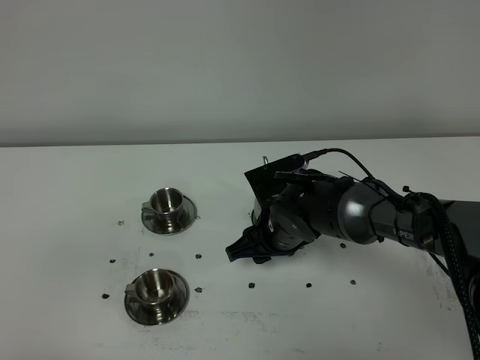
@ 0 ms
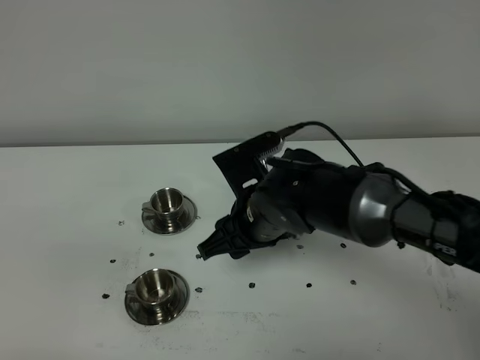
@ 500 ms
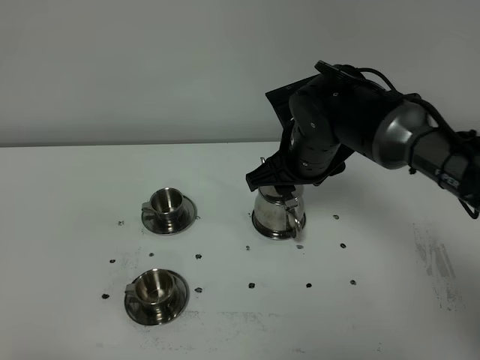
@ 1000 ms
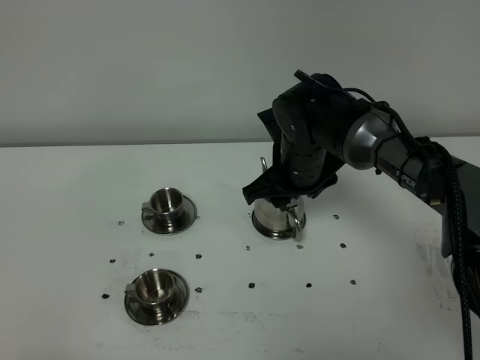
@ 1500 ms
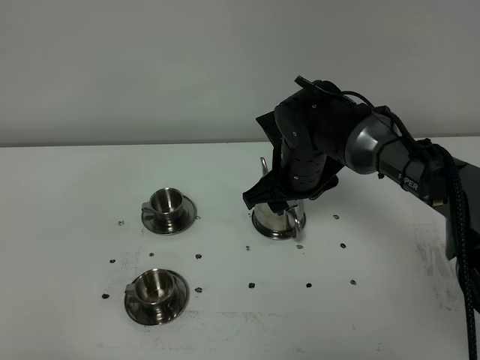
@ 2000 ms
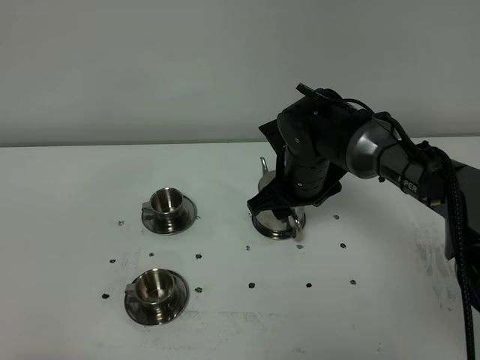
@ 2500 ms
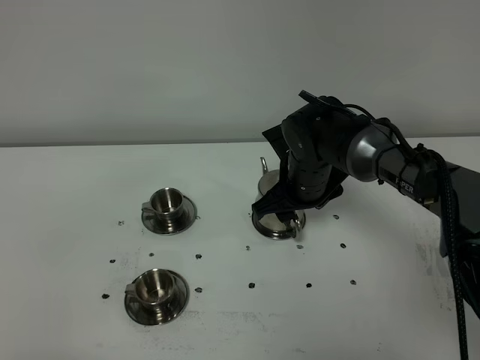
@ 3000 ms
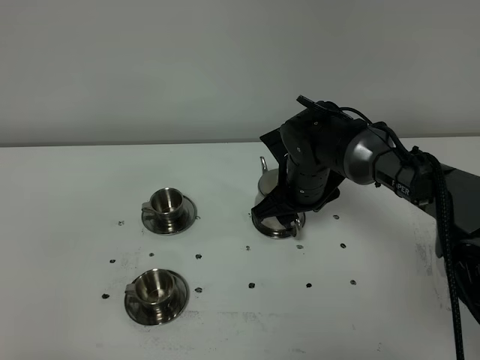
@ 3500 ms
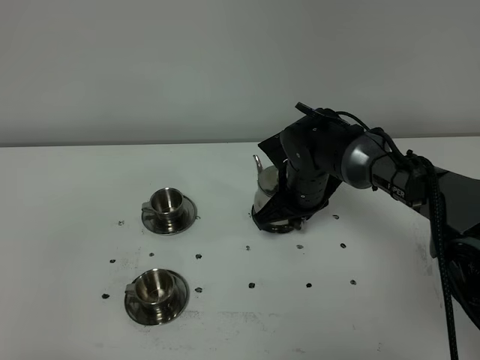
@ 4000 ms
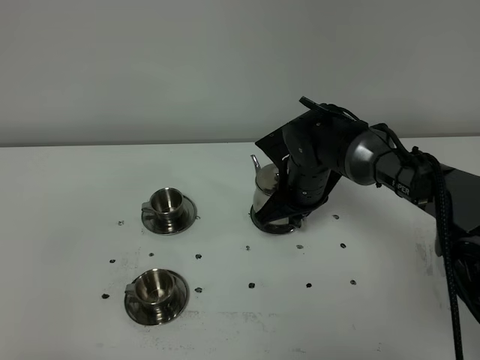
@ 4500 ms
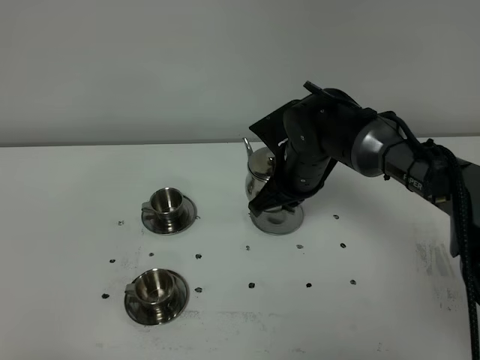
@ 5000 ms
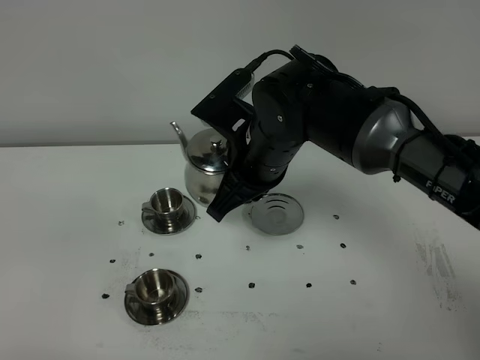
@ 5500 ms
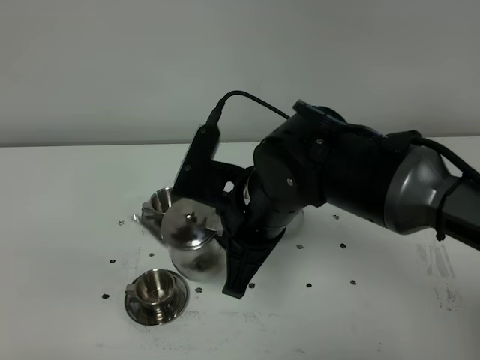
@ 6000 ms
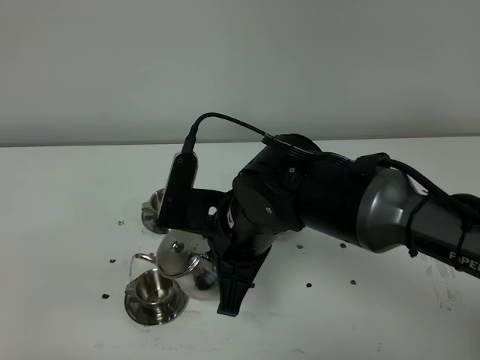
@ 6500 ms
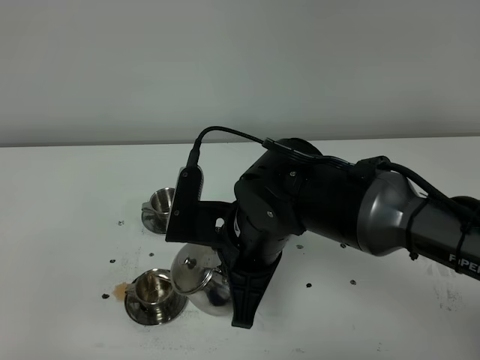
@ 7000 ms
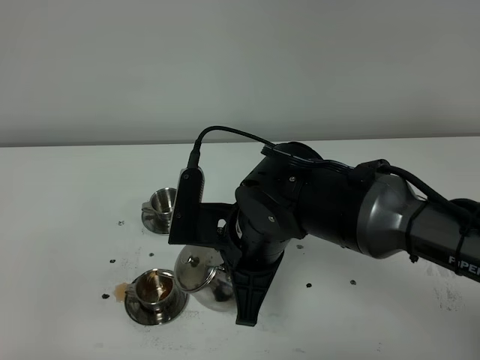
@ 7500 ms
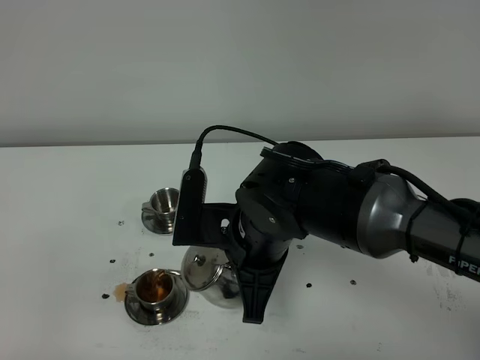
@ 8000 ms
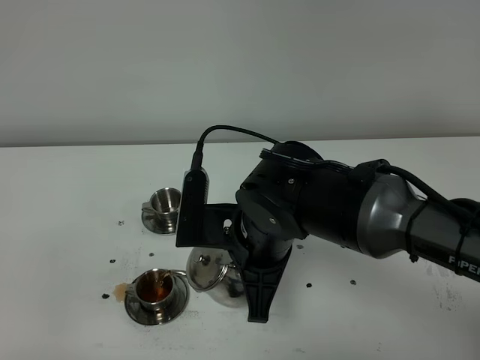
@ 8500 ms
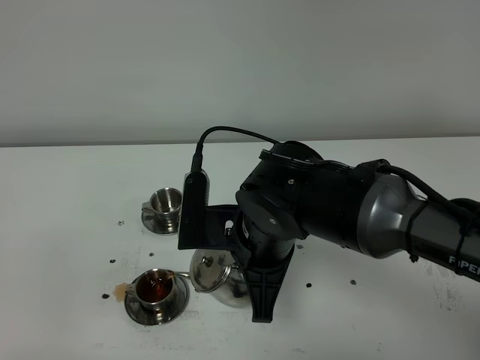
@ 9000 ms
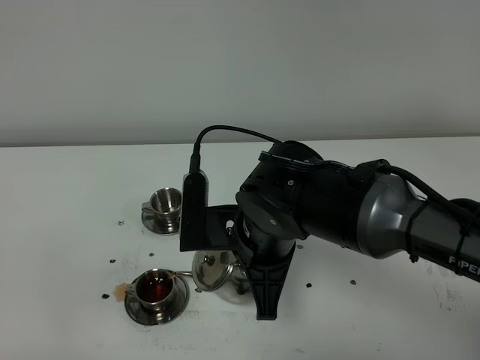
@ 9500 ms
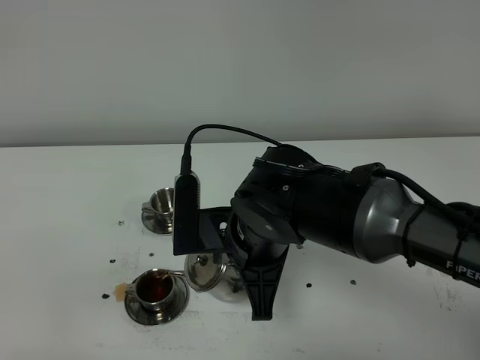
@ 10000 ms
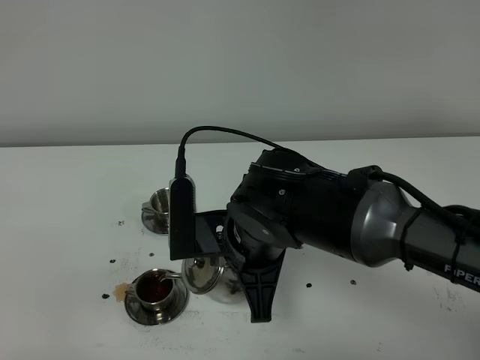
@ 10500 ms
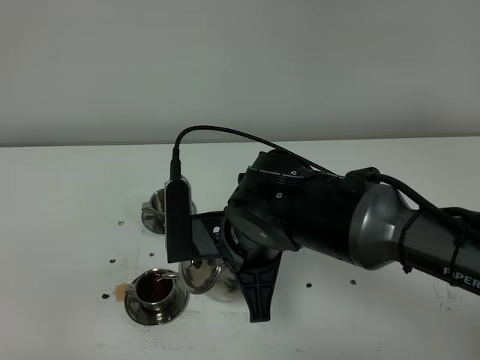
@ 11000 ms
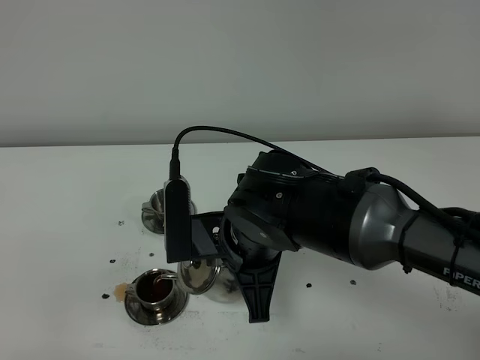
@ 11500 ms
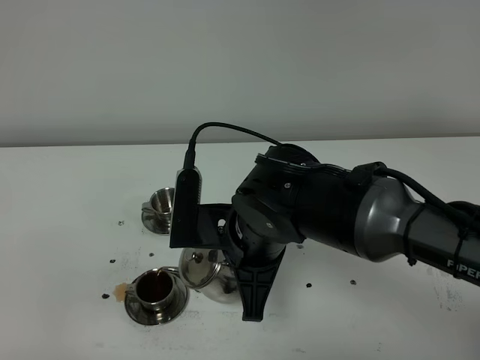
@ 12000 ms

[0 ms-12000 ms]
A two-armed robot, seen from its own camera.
Task of the whole recording: grasp the stainless steel teapot and pour the tea into the two stainless steel teacups one by one, put the stainless steel teapot back in its original place.
Step, 0 ms to 4500 ms: Pick up the teapot with the right gripper.
0 ms to 2000 ms: The right gripper moves upward, roughly 5 cm.
2000 ms to 4000 ms: The right gripper moves approximately 5 cm, and closes its fingers.
4000 ms to 6000 ms: The right gripper goes approximately 20 cm backward, upward and to the left.
6000 ms to 10000 ms: The grippers stay close to where they were, moving slightly.
10000 ms to 12000 ms: The grippers stay close to where they were, moving slightly.

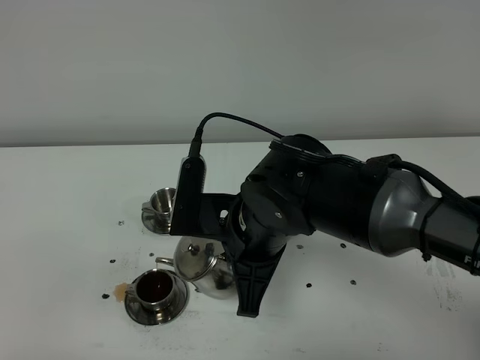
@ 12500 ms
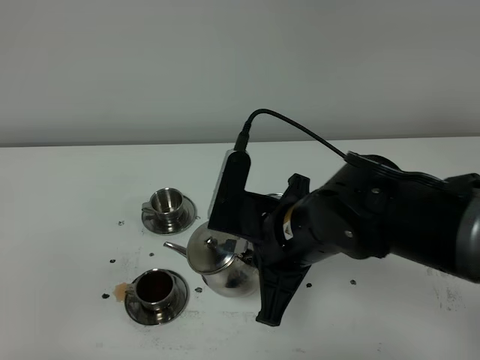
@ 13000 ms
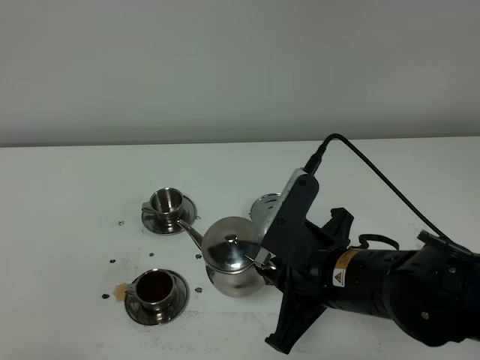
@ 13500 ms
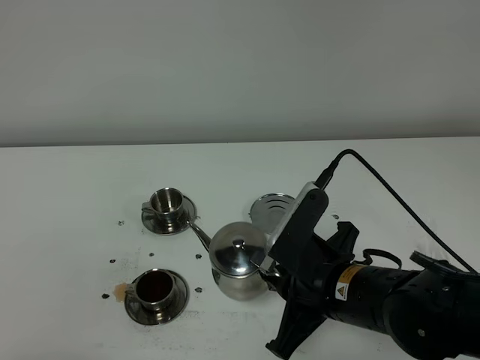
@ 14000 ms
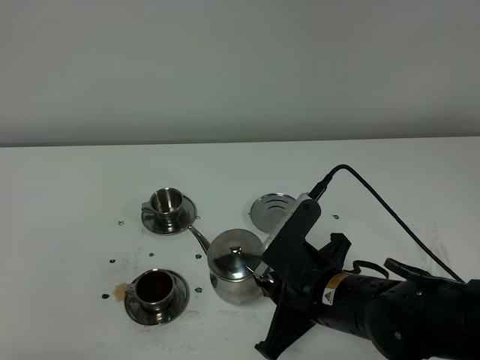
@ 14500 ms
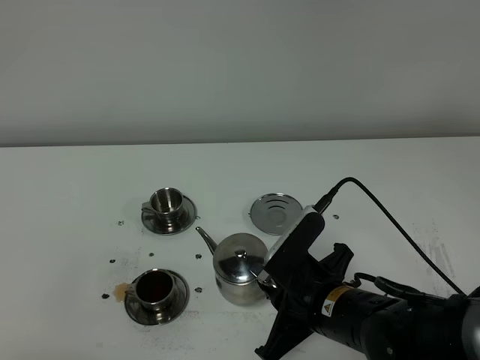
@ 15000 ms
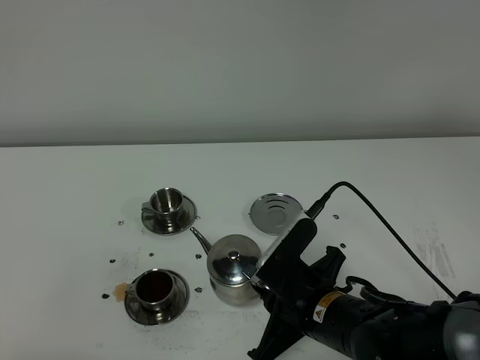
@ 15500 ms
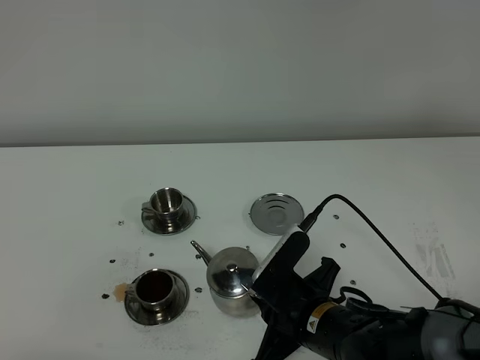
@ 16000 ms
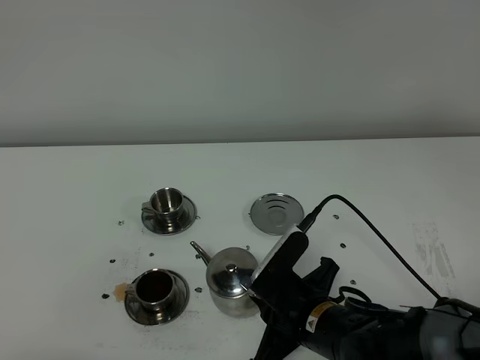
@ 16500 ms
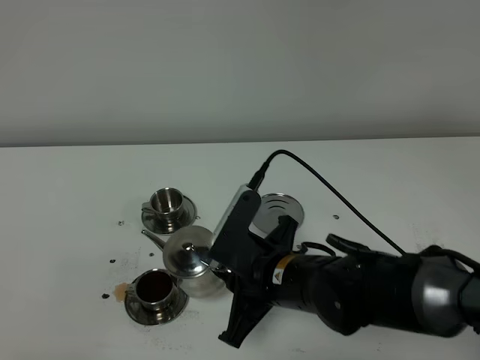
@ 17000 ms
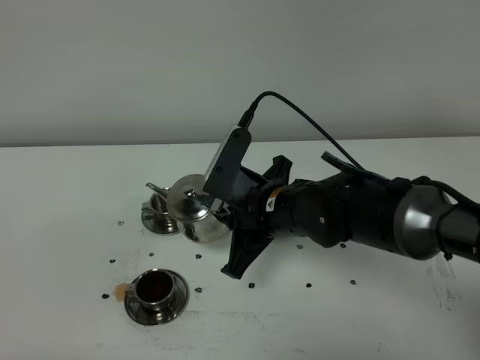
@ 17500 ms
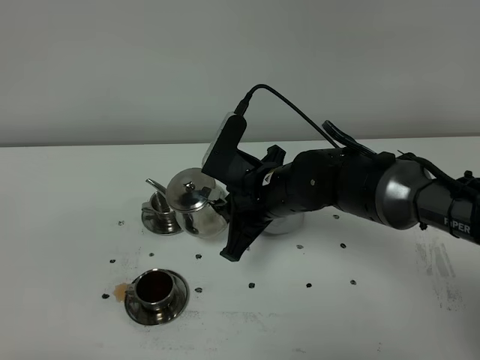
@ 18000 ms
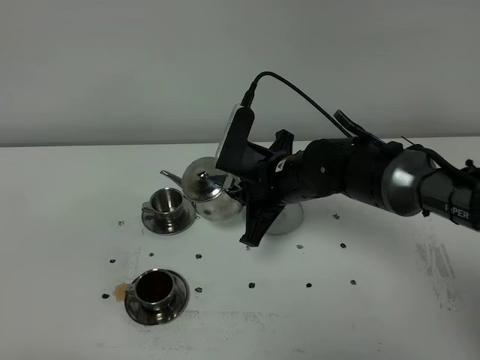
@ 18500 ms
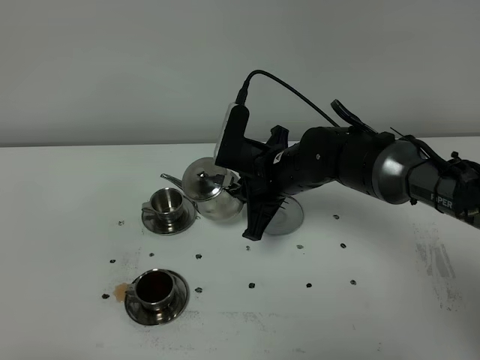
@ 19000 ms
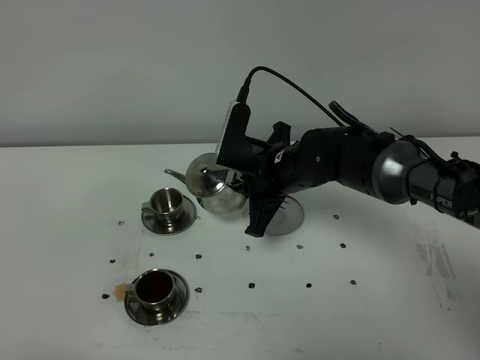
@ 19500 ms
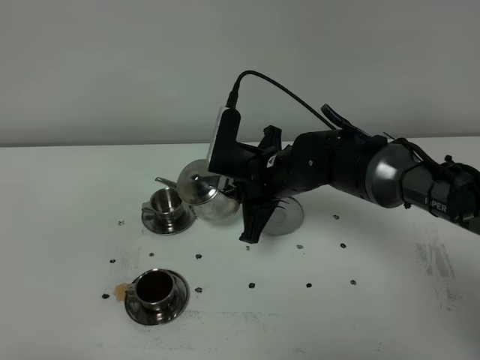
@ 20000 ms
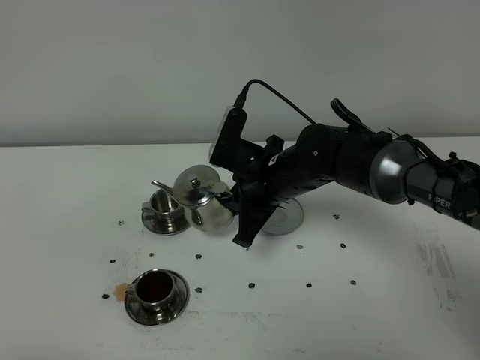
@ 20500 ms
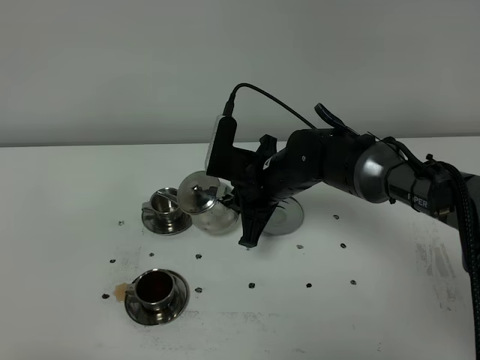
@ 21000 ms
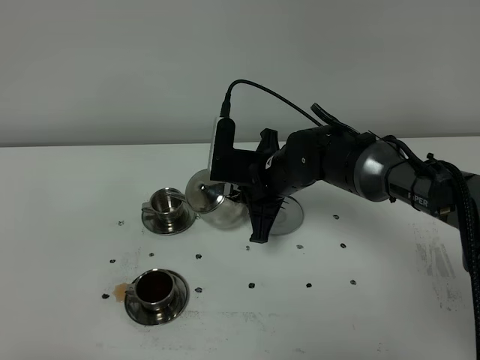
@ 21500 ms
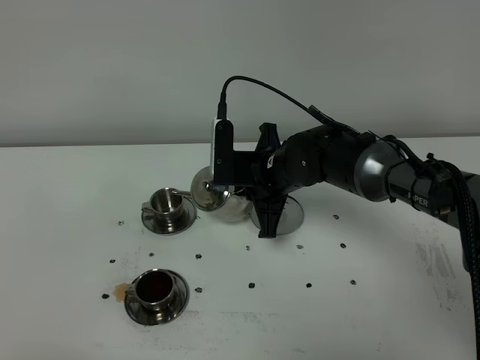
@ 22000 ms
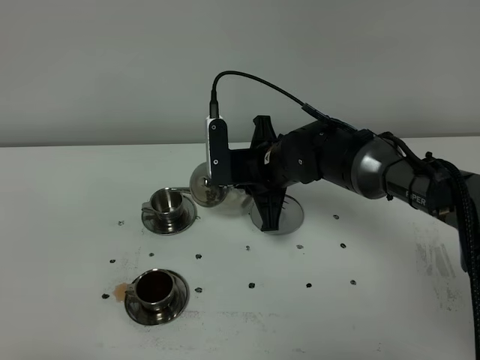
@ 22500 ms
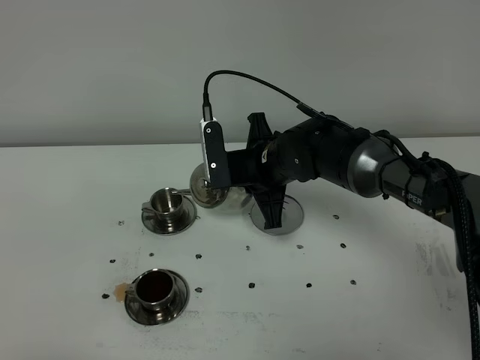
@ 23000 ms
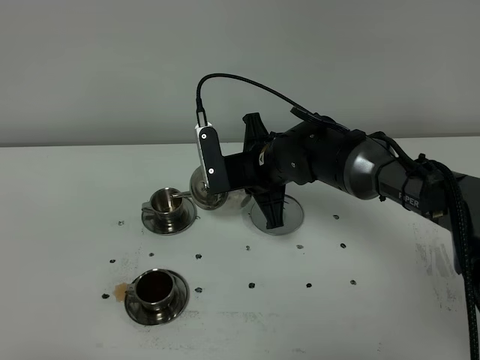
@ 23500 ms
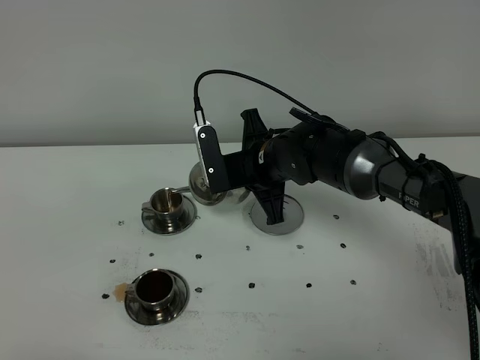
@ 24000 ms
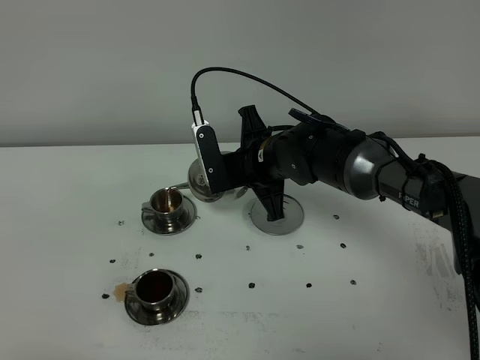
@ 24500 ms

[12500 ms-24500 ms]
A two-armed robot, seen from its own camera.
Task of the whole recording: grasp the stainless steel teapot and pour the tea into the two stainless steel teacups one by one, put the stainless steel teapot back in its original place.
12500 ms to 14500 ms: The right gripper goes approximately 10 cm downward and to the right.
14500 ms to 16500 ms: The right gripper shifts roughly 5 cm downward.
16500 ms to 18500 ms: The right gripper heads forward and upward, covering approximately 15 cm.
18500 ms to 20500 ms: The grippers move only a little.
22500 ms to 24500 ms: The grippers stay close to where they were, moving slightly.

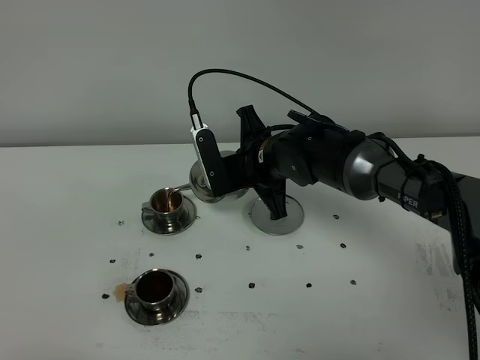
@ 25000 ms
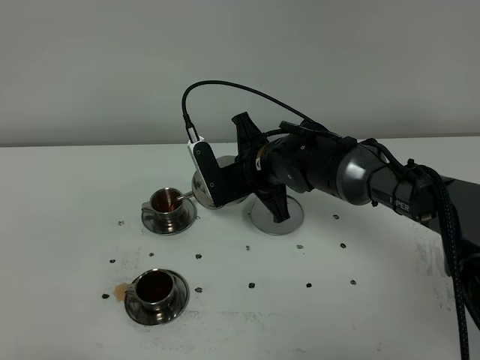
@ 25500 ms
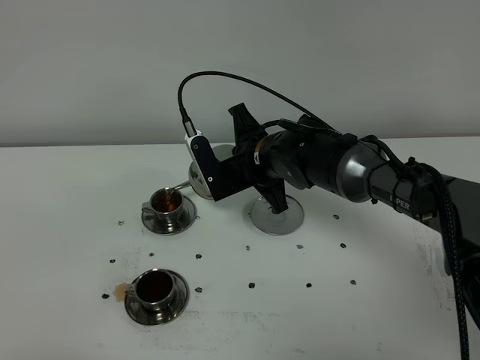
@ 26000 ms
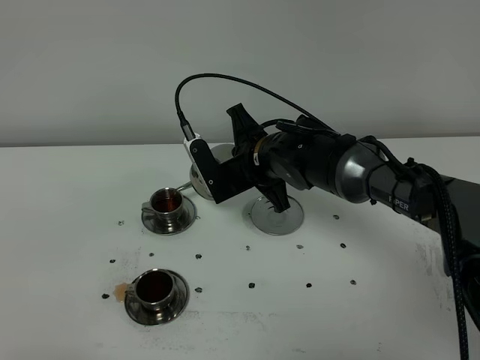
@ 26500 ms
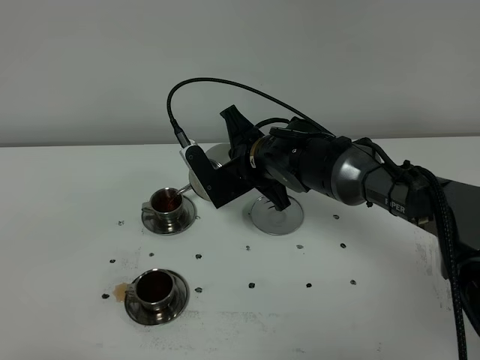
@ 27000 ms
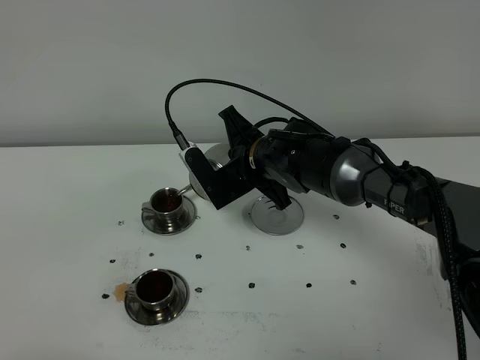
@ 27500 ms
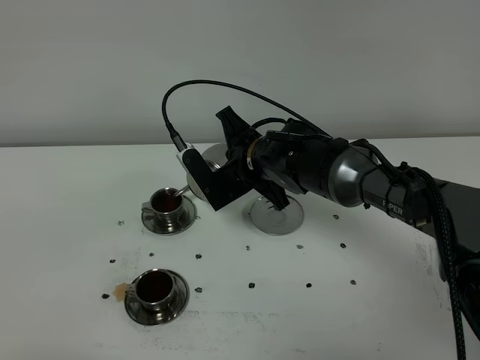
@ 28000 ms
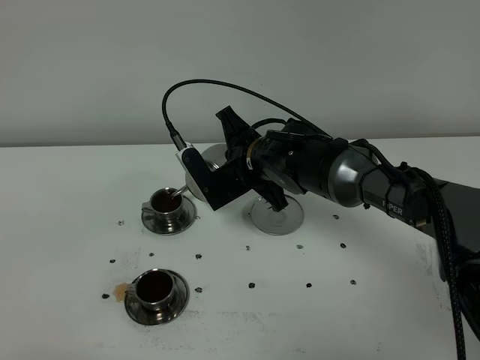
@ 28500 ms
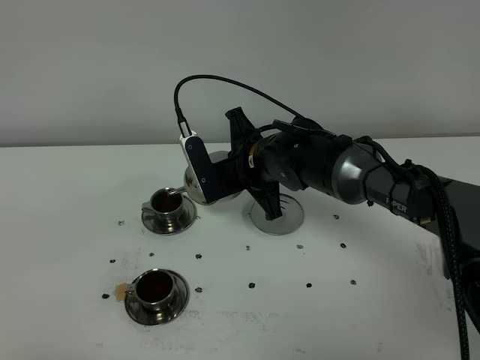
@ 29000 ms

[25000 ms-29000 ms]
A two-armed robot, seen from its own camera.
Task of the whole recording: grasp the stainless steel teapot and pour the tea into the two stainless steel teacups one by one, put the stainless steel teapot back in its original place.
25000 ms to 29000 ms: The grippers make only small movements.
